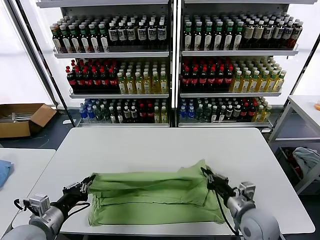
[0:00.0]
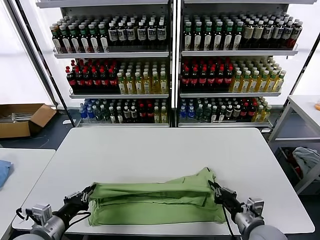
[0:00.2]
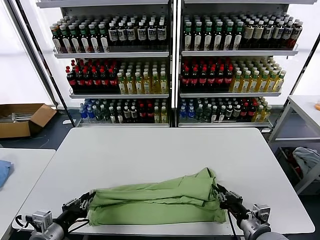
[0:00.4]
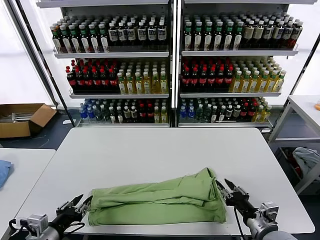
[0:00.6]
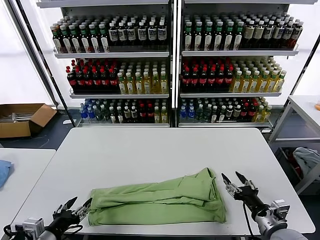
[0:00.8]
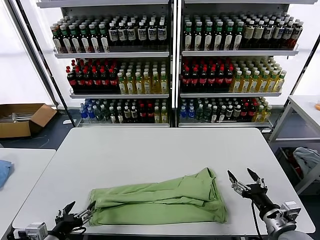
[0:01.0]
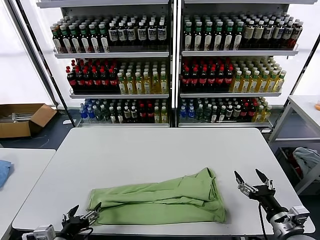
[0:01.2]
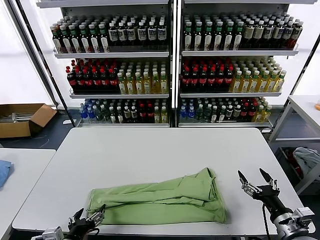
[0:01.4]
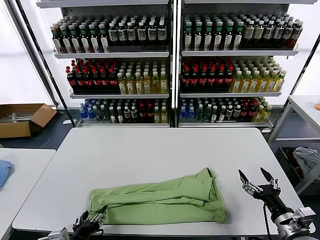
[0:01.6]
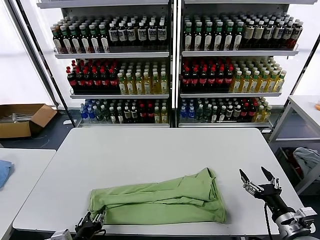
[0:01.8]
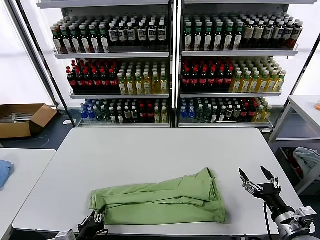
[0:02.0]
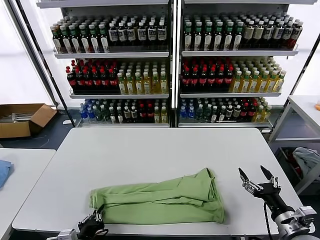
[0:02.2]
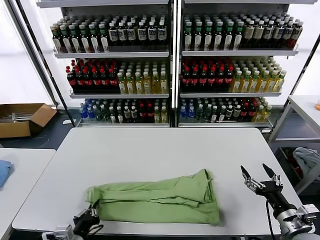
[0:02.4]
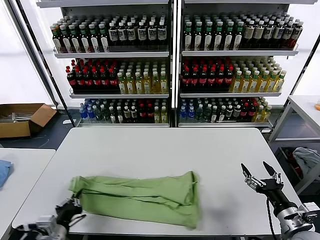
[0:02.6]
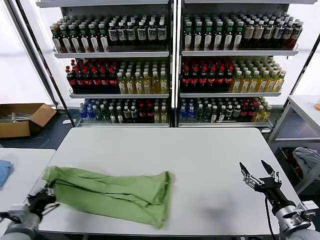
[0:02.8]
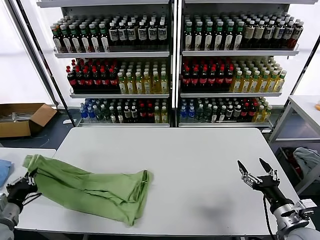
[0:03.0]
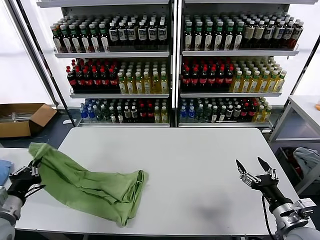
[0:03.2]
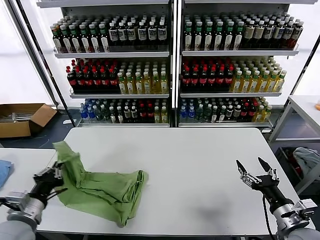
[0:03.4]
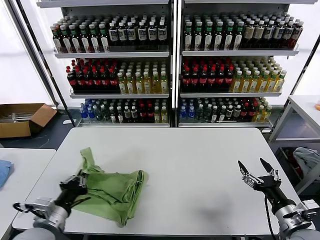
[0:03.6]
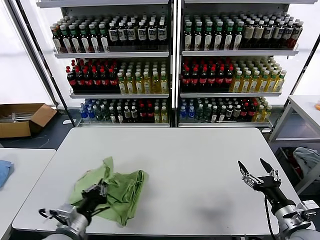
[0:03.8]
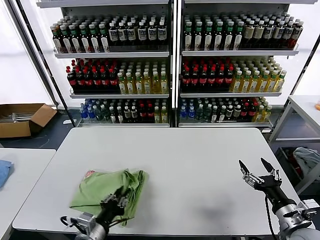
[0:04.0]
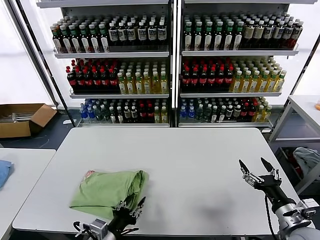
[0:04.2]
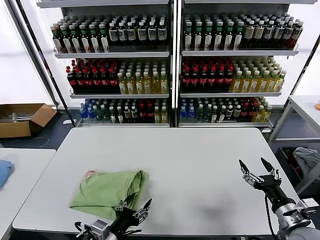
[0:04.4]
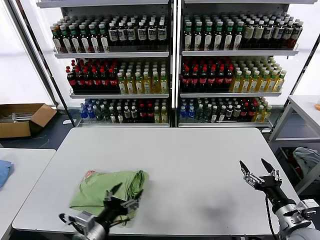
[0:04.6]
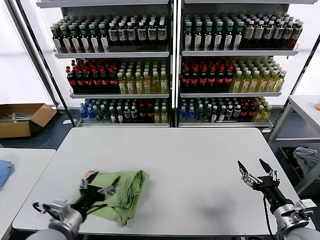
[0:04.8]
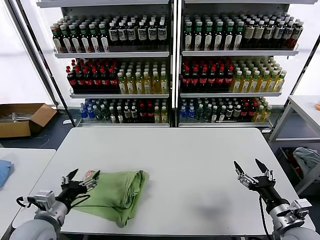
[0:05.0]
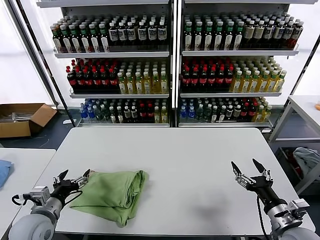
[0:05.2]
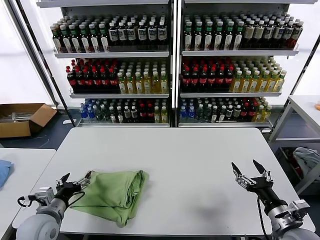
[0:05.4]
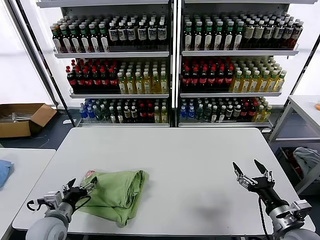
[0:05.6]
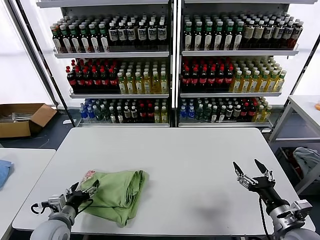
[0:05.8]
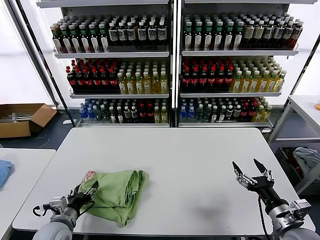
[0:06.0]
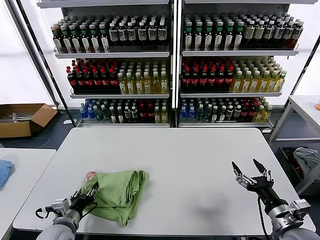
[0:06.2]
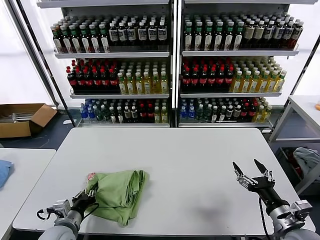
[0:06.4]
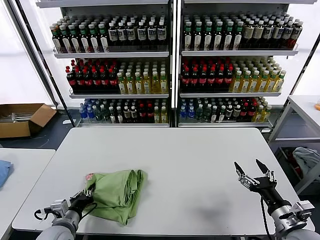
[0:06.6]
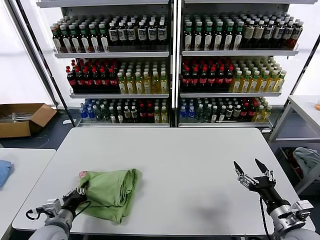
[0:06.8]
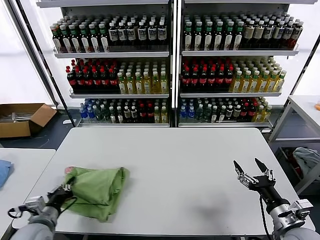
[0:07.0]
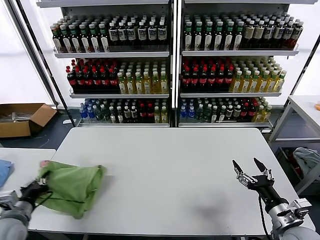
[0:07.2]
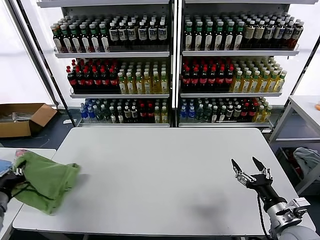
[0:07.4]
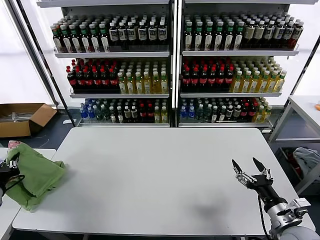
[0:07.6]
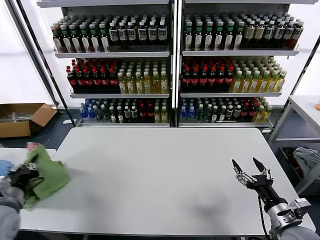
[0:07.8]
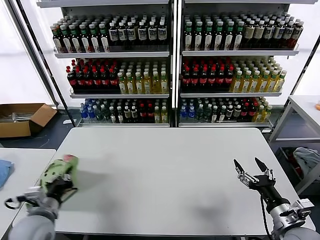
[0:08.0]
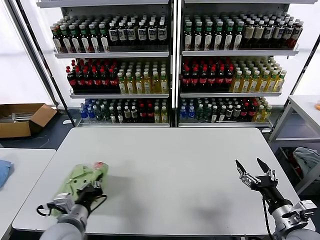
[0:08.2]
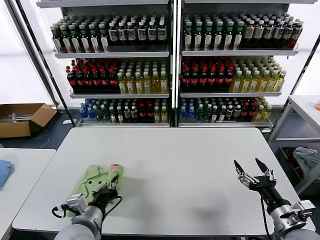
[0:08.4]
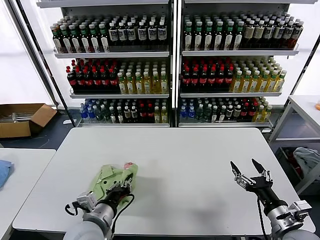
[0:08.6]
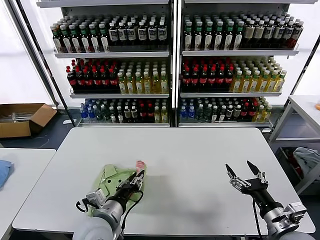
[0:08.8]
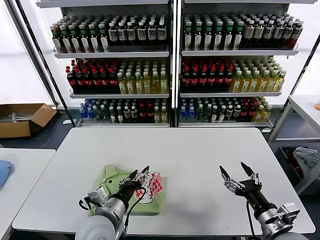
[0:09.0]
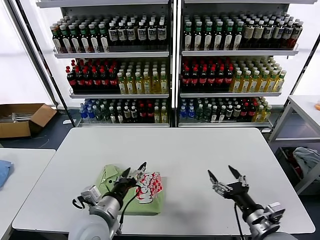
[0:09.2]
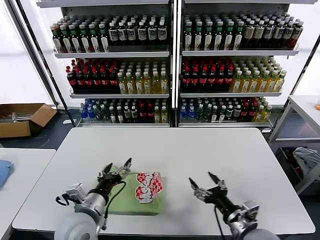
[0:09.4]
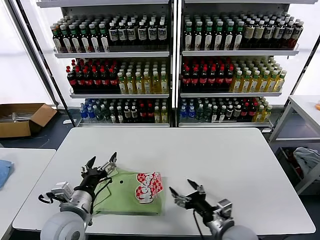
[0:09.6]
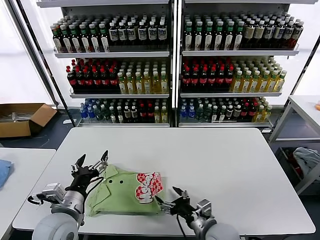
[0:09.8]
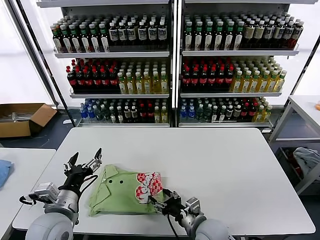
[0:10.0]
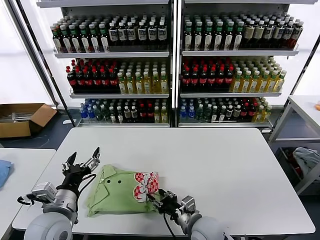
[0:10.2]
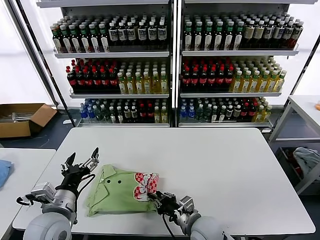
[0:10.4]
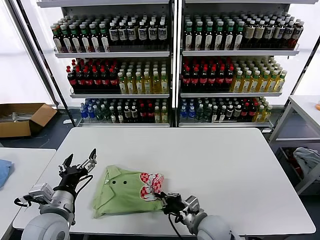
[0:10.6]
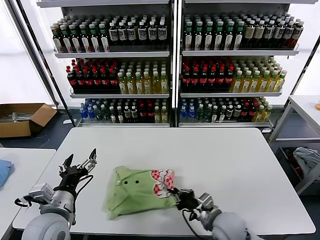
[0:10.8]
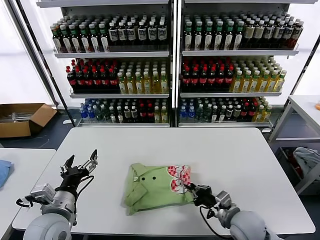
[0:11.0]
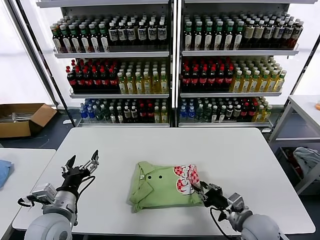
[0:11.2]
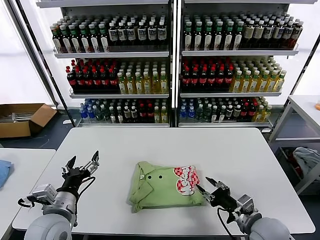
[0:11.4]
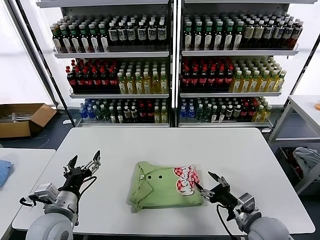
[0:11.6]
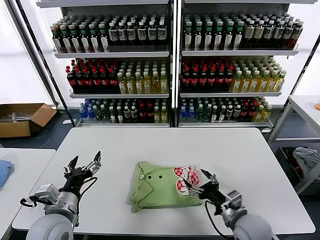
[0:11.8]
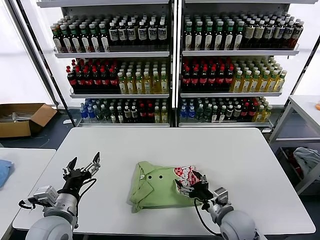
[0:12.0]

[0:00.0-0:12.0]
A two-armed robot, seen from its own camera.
Task of the whole recording: fold and organize the clothes.
Step, 0:00.8 to 0:02.2: use the left gripper to clamp the left edge of the fabric.
Step, 0:02.4 to 0:04.2: use the left gripper to drag the left edge of the fabric to the left and folds it over the right edge.
Step, 0:04.4 to 0:09.0: Flip the folded clothes over with left gripper.
0:00.0 to 0:01.6: The right gripper heads to the right and backward, covering approximately 10 cm, and opens up; the left gripper moves to the right, downward and backward, about 10 cm, and opens up.
0:01.6 to 0:03.0: The left gripper goes some 15 cm to the left, and closes.
0:03.0 to 0:04.4: The left gripper moves to the right, some 25 cm, and opens.
0:04.4 to 0:06.0: The left gripper travels to the left and forward by roughly 15 cm.
0:06.0 to 0:07.6: The left gripper moves to the left and upward, some 20 cm, and closes.
0:07.6 to 0:09.0: The left gripper goes about 30 cm to the right, and opens its fingers.
0:09.0 to 0:10.4: The left gripper is displaced to the left by roughly 10 cm, and opens, while the right gripper goes some 20 cm to the left and downward, and closes up.
0:10.4 to 0:12.0: The right gripper is displaced to the right by roughly 10 cm, and opens.

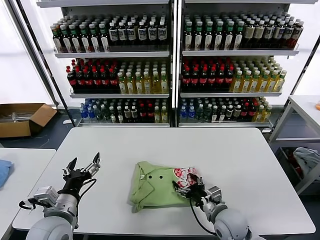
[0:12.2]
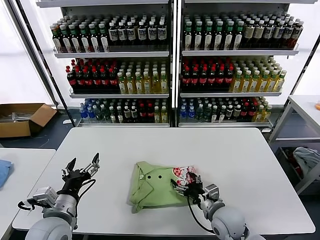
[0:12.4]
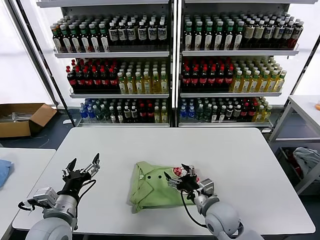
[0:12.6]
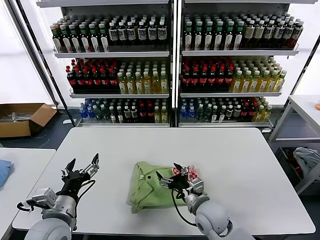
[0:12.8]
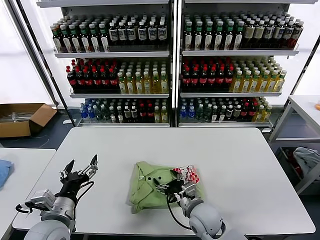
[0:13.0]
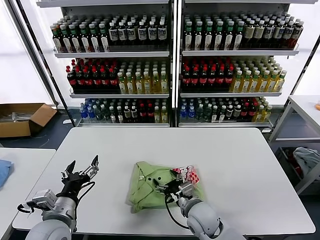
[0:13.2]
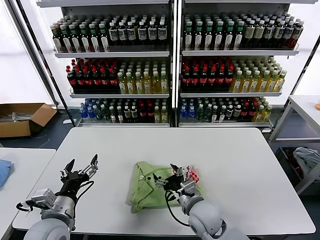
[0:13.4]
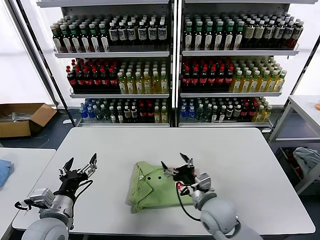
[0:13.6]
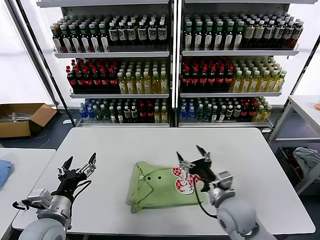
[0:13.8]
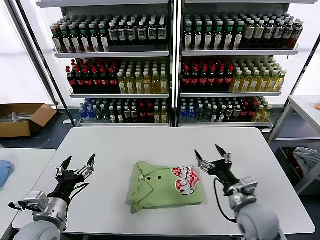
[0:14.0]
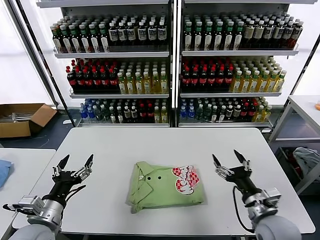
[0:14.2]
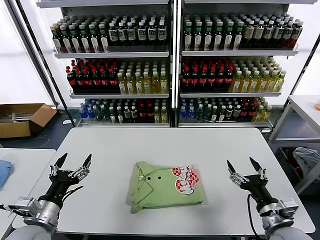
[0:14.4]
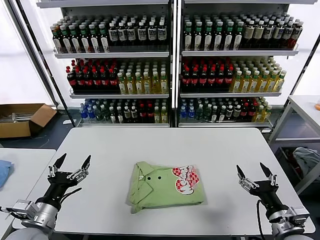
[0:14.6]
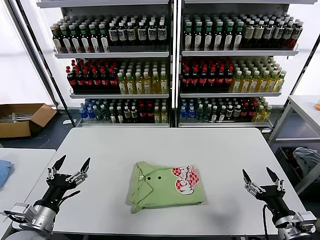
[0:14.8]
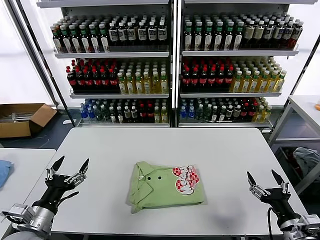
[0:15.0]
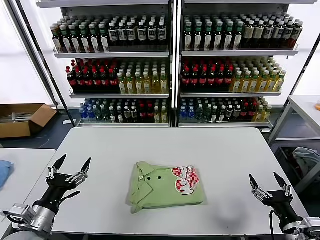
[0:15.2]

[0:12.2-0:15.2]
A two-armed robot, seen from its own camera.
Task of the whole recording: fold and organize the clothes.
0:12.2 to 0:13.8: The right gripper is displaced upward by roughly 10 cm, and moves approximately 10 cm to the left and comes back.
0:13.8 to 0:15.2: The right gripper is displaced to the right and backward by approximately 20 cm; the left gripper heads to the left, covering approximately 5 cm.
